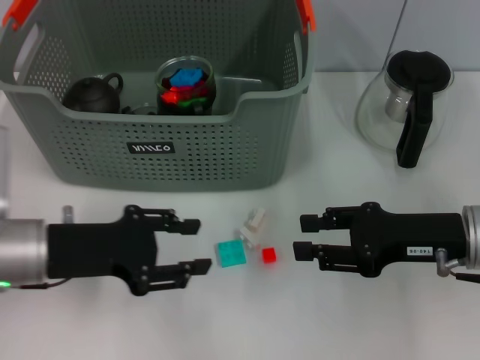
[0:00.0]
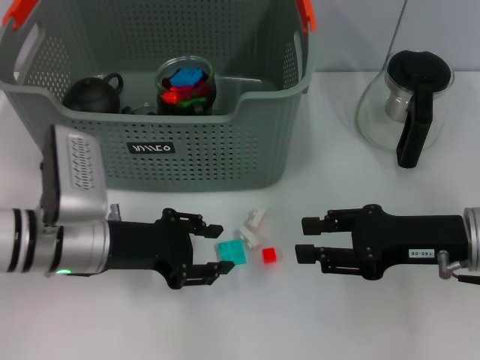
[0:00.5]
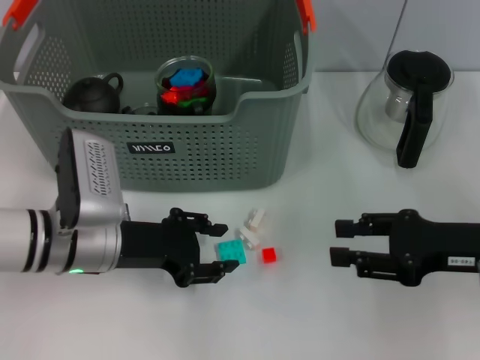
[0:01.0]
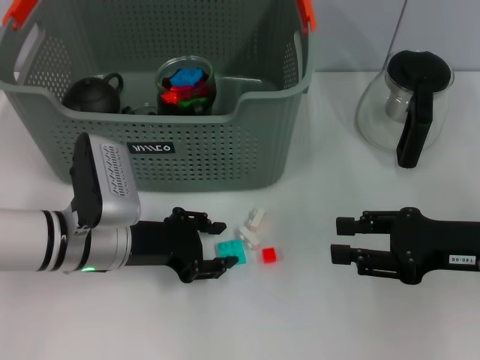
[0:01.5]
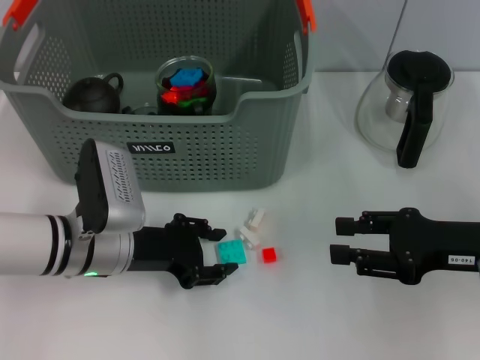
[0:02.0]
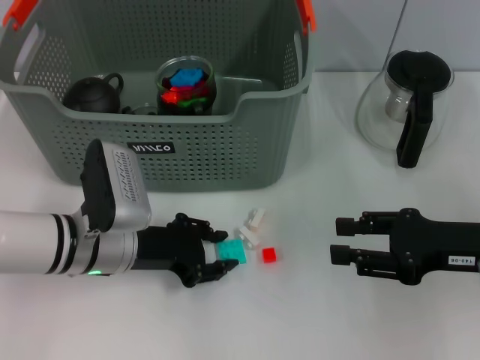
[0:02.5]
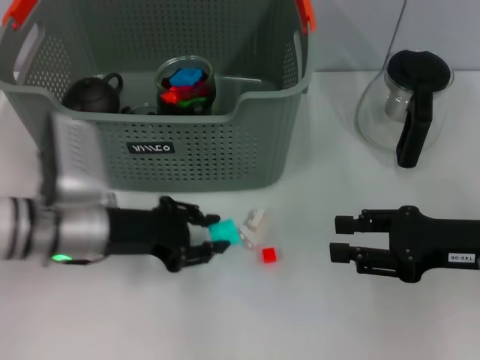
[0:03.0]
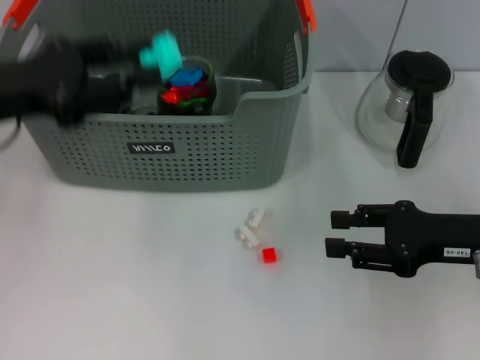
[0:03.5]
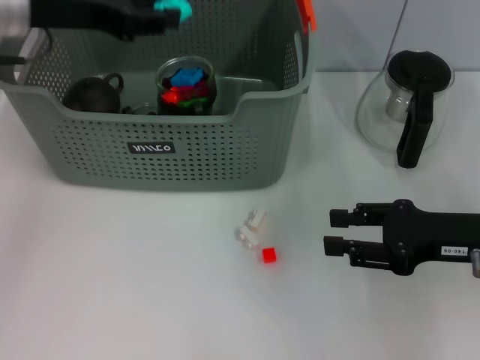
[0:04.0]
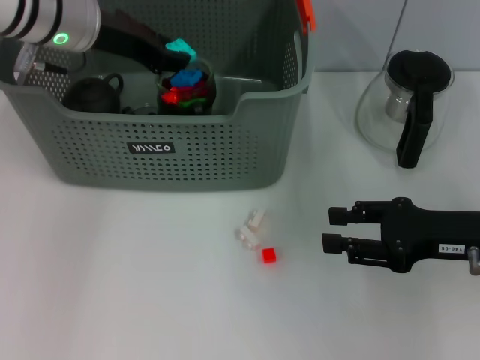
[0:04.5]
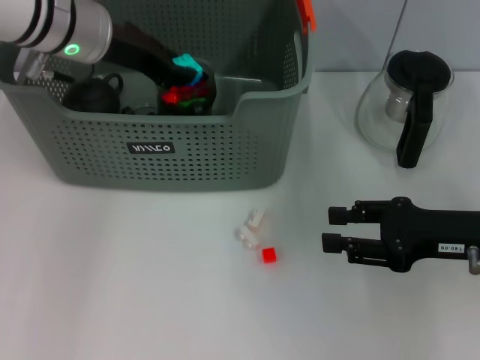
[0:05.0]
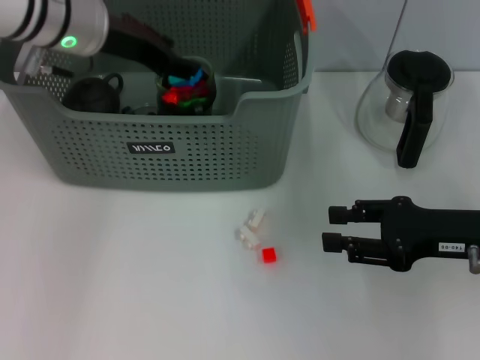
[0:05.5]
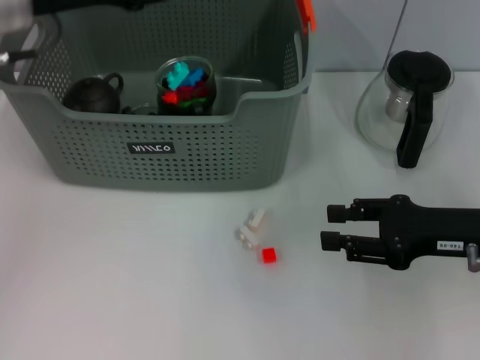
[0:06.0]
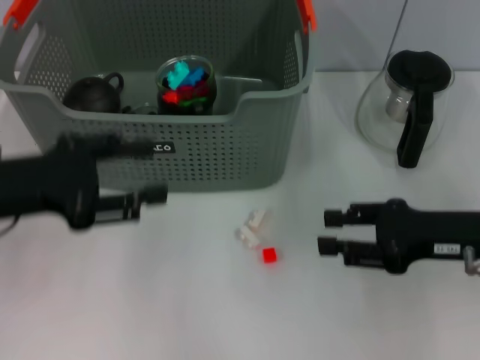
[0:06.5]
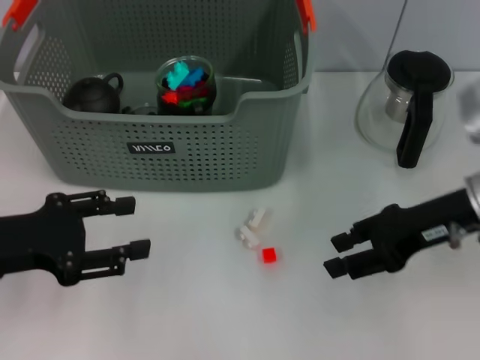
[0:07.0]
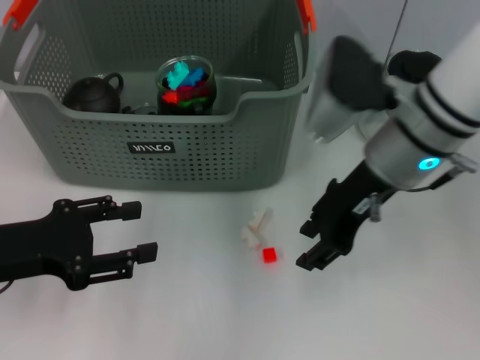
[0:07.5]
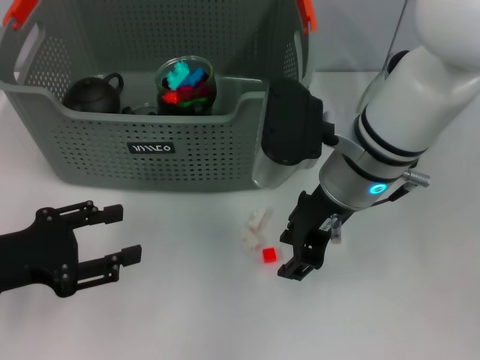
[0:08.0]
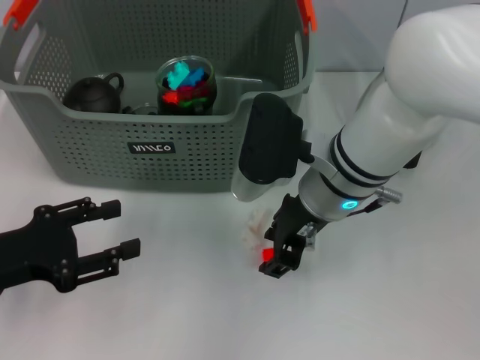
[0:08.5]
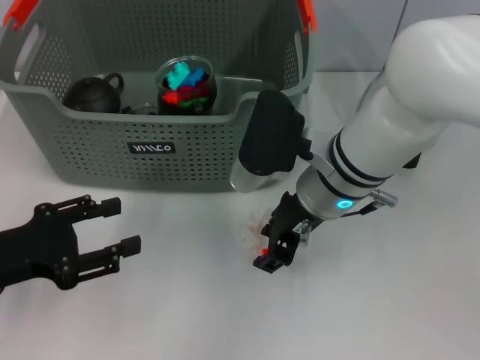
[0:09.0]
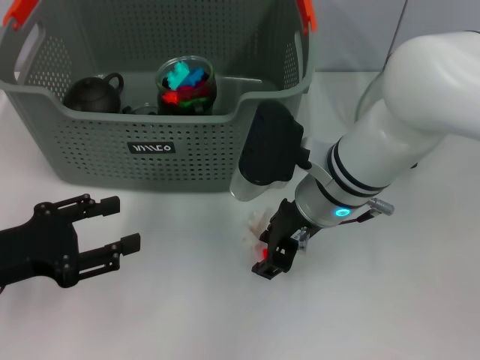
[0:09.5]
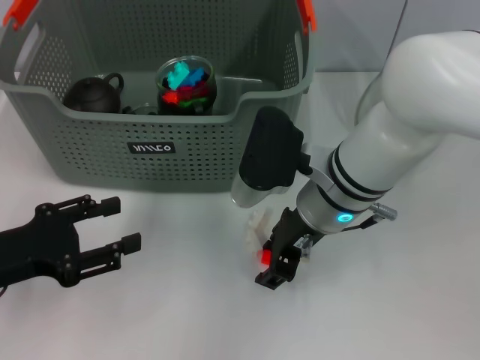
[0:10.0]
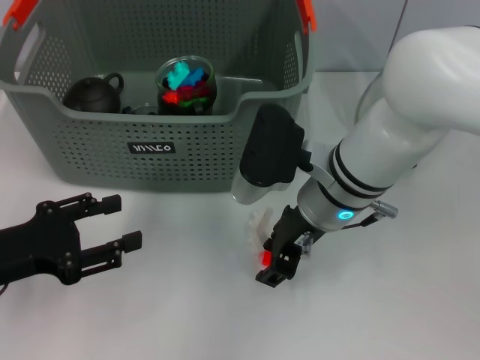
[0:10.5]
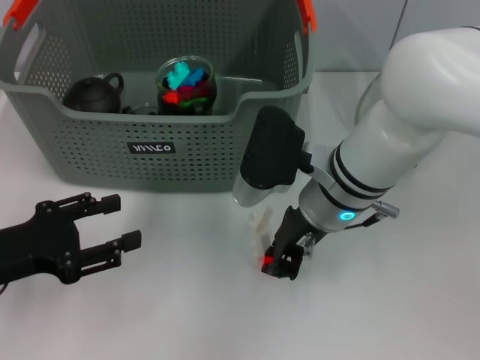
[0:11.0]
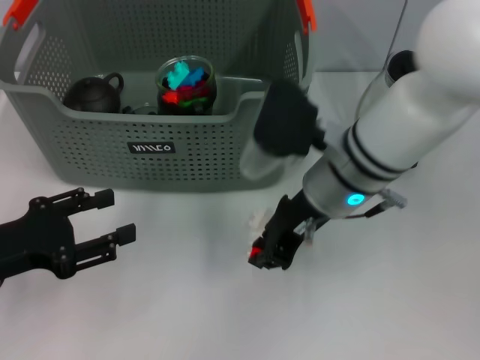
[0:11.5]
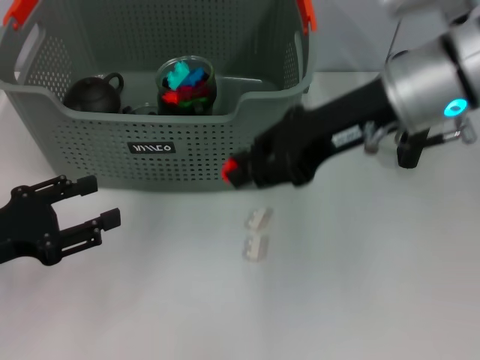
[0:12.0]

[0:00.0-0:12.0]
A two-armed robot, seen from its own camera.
Task of the whole recording: pick up the teacup on the table and place it into the storage bin, pick up the block on the table and place it into the storage bin.
Step, 0:00.0 to 0:02.5: Grasp the light blue block with left gripper.
Step, 0:03.0 to 0:05.5: Place the light blue block in the storage box with left gripper.
Step, 0:06.0 to 0:11.0: Grasp the orange block with right gripper.
0:00.0 to 0:02.0: The left gripper heads to the right and downward, covering roughly 10 cm.
0:02.0 to 0:04.0: The left gripper shifts about 20 cm upward and forward.
0:06.0 to 0:08.0: The right gripper moves to the left, roughly 20 cm, while the left gripper shifts about 20 cm backward, downward and to the left.
0:08.0 to 0:10.0: There are only small adjustments of the grippers.
0:10.0 to 0:12.0: The right gripper heads upward and to the right, covering some 15 cm, and closes its fingers.

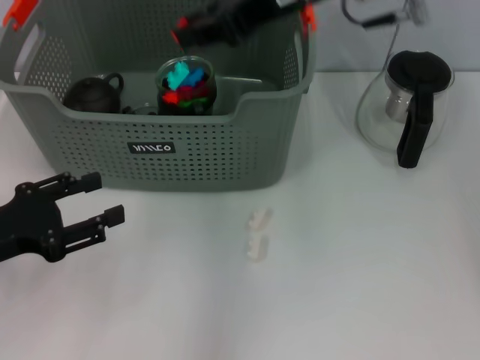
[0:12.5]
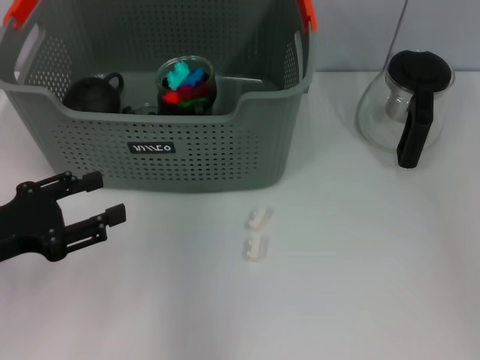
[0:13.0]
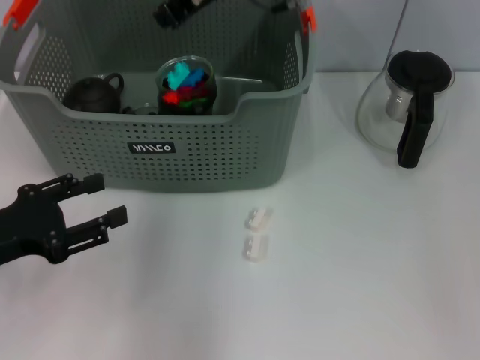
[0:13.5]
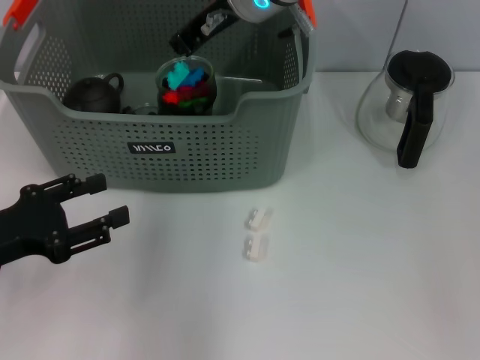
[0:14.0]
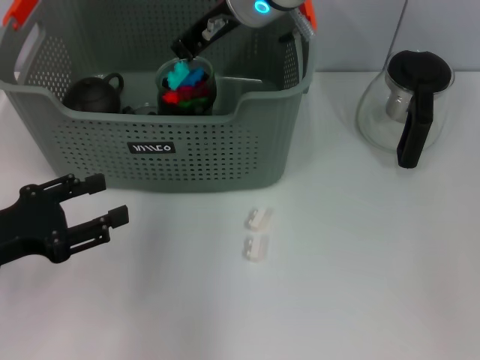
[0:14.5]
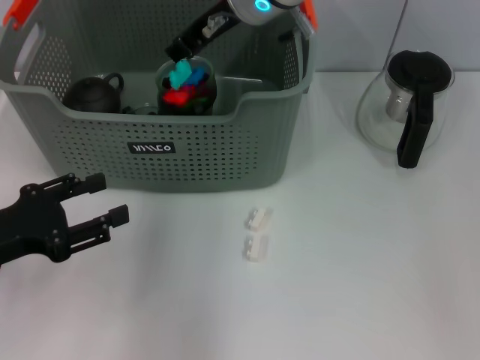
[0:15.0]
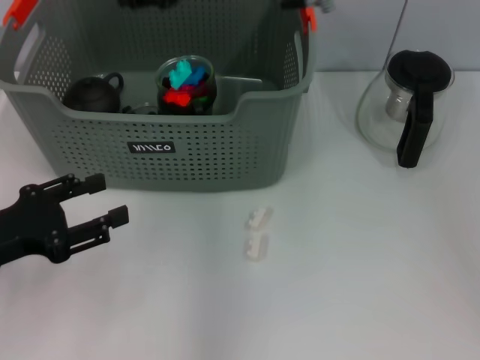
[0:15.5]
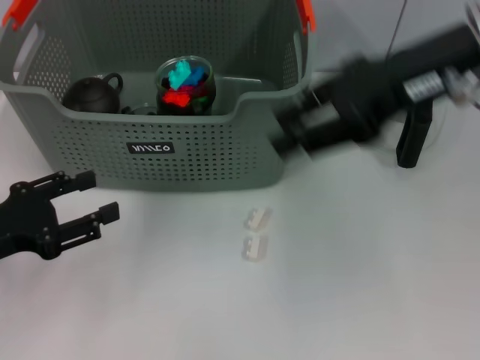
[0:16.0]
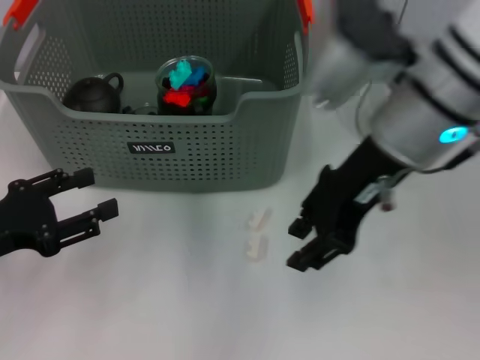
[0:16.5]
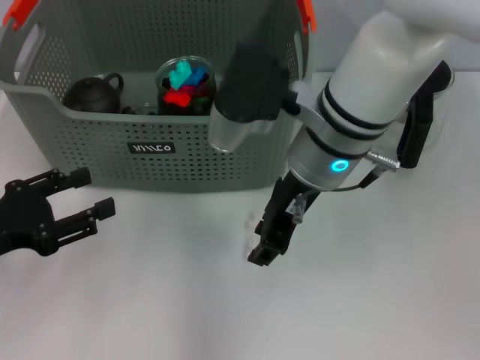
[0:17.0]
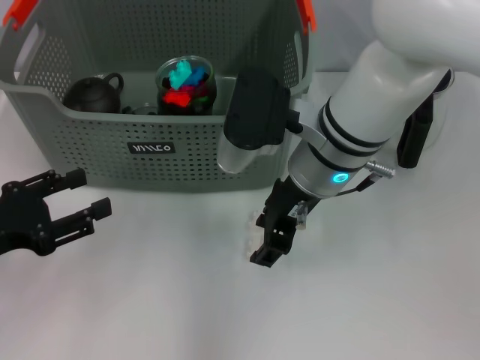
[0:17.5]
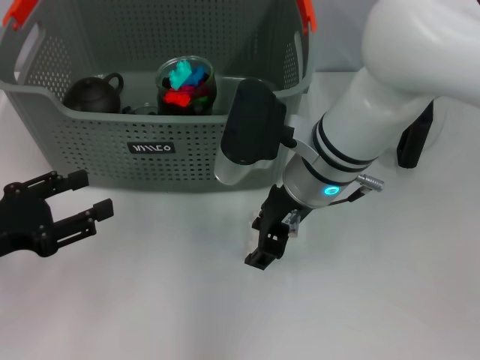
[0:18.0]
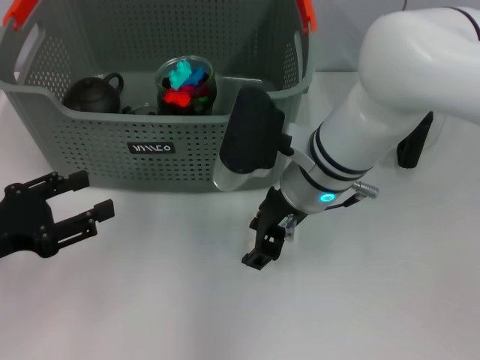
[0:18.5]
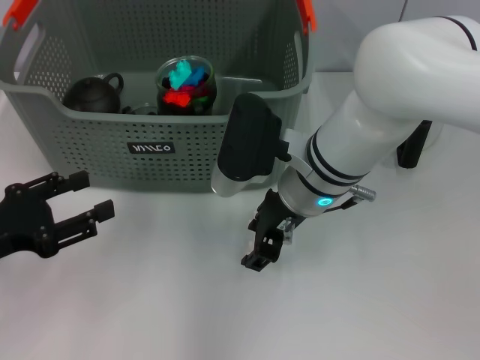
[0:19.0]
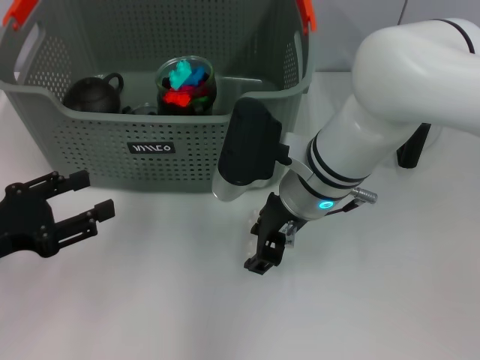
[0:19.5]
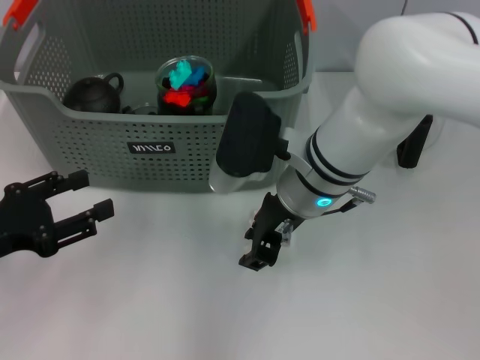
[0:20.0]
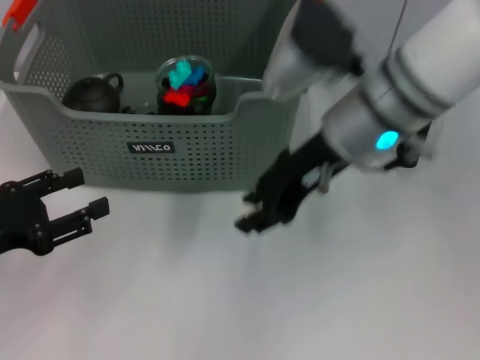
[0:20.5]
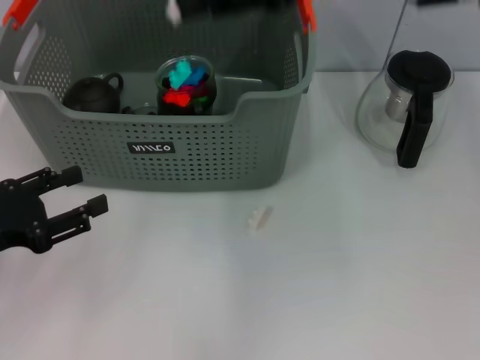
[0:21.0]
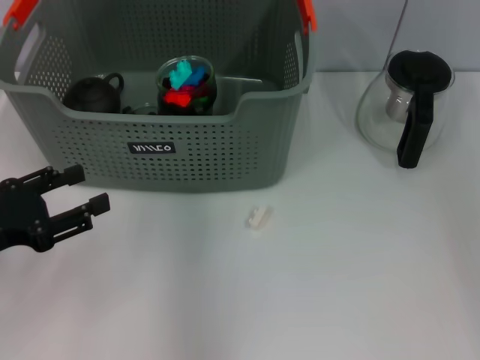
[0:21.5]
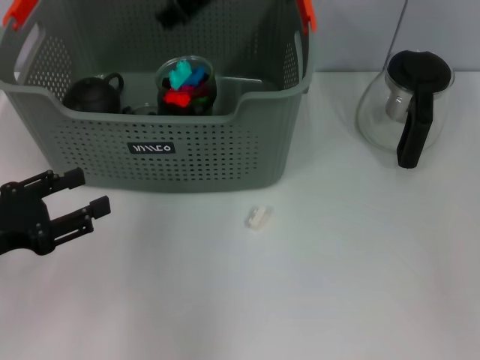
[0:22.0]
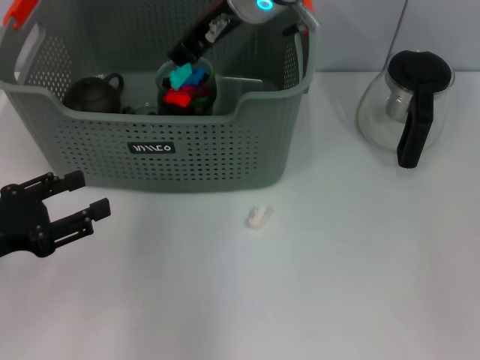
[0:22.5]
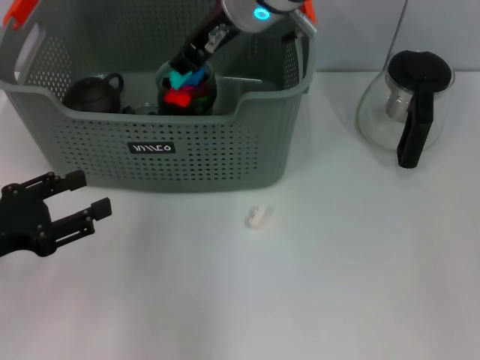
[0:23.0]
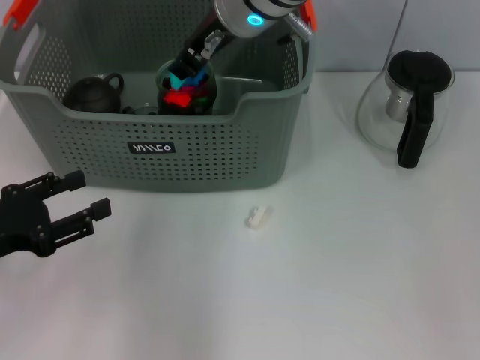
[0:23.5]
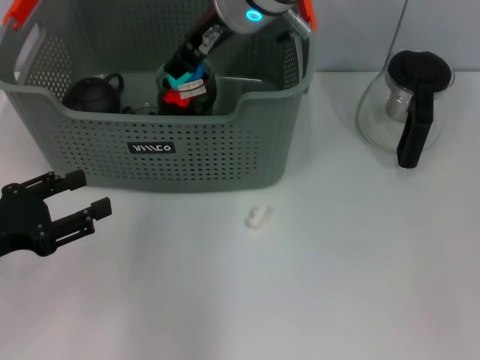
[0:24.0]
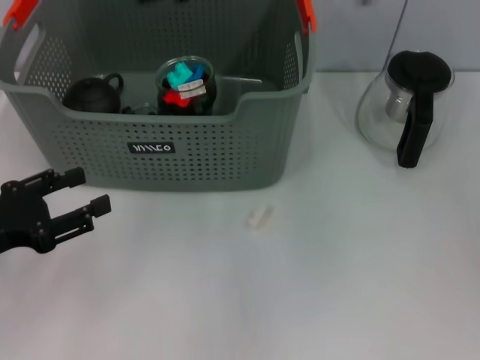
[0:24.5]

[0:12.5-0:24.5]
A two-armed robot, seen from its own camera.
Task of the whole recording: pick up the teacup on the table and place it into the storage bin, pick up the block on the table and place it into the storage bin.
Step, 0:12.5 to 0:15.0: Place the orange block in the storage box with right gripper.
Step, 0:15.5 to 0:19.5: Grasp the white block with right gripper.
Step, 0:20.0 to 0:24.0: Place the white block in the storage box with right gripper.
0:12.5 to 0:14.5: The right gripper moves to the left, downward and forward, some 10 cm.
0:14.5 to 0:16.5: The right gripper moves backward and to the right, about 15 cm.
0:16.5 to 0:18.5: The right gripper is displaced downward and to the left by approximately 15 cm.
0:18.5 to 0:20.5: The right gripper moves upward, approximately 10 cm.
0:20.5 to 0:22.5: The right gripper goes about 10 cm forward and to the left, and reaches some 15 cm upward, then returns.
0:22.5 to 0:24.5: The right gripper shifts approximately 10 cm to the right, backward and upward.

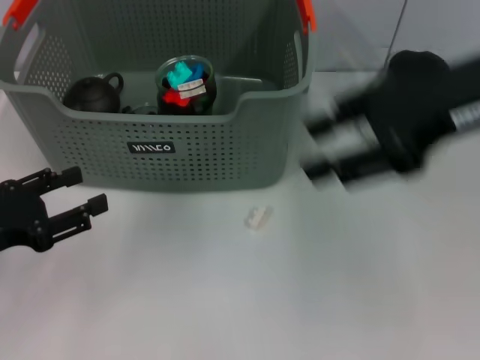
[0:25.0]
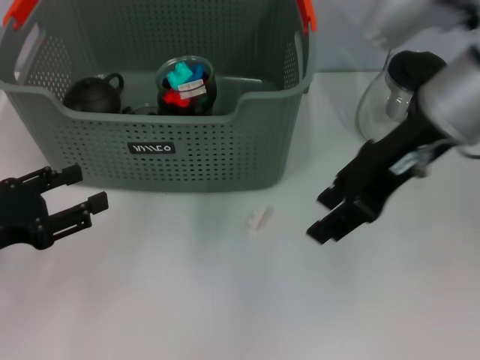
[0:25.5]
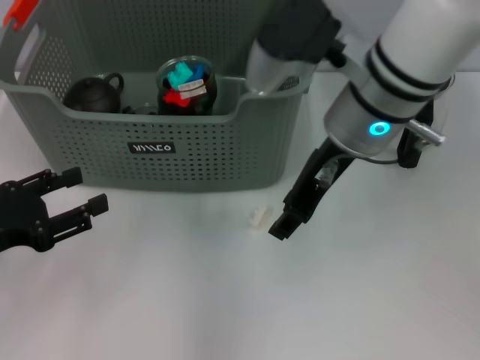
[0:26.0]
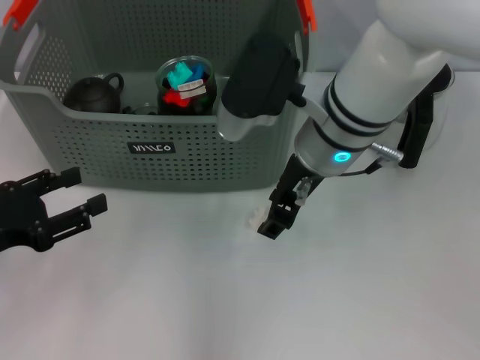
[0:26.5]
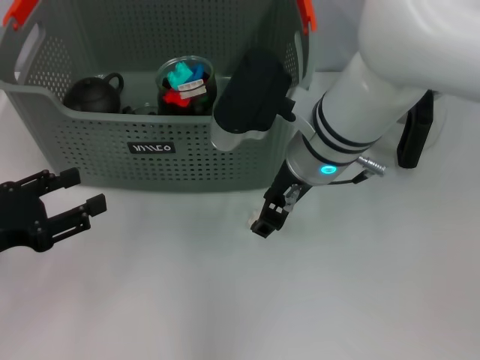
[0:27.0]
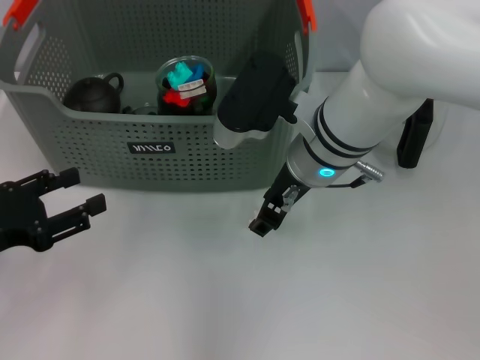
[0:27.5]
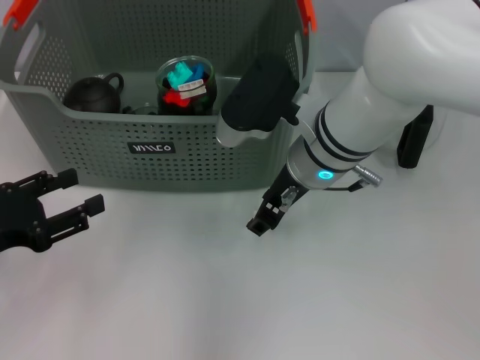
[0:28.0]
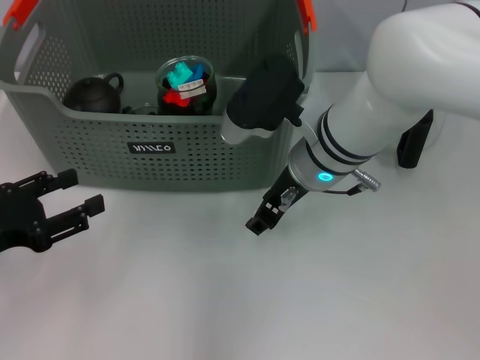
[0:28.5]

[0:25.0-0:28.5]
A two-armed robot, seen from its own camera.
Task of the whole recording: pick up the teacup on the table and place it into the storage bin, pick up the block on the table and place it into the storage bin.
0:25.0 to 0:27.0: The right gripper shifts roughly 20 cm to the left and downward.
0:27.0 to 0:28.5: There are only small adjustments of the grippers.
